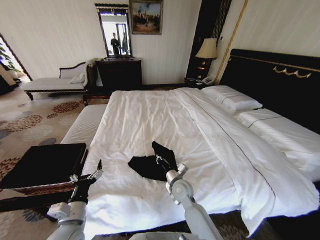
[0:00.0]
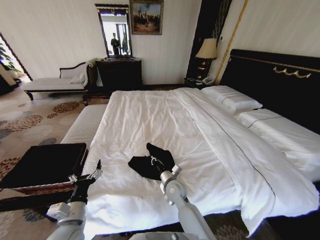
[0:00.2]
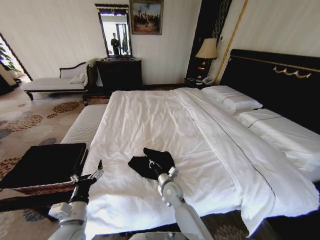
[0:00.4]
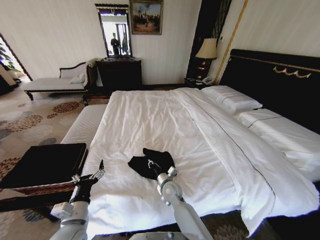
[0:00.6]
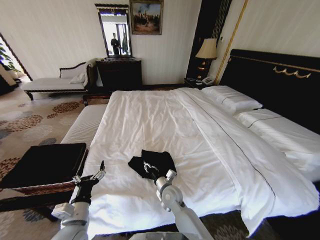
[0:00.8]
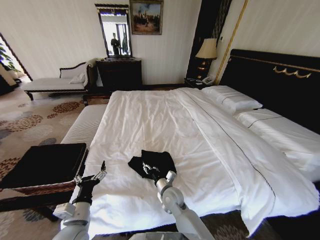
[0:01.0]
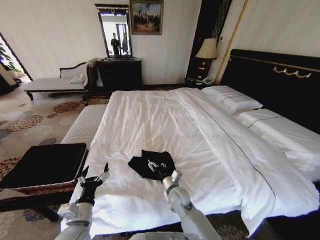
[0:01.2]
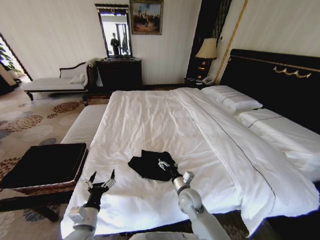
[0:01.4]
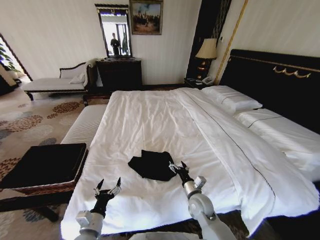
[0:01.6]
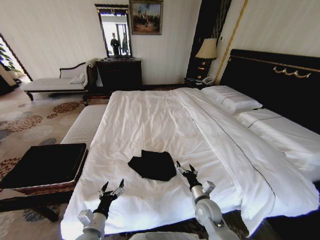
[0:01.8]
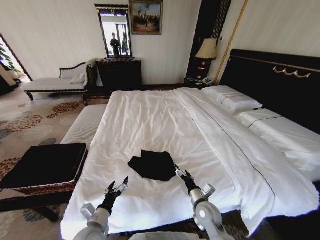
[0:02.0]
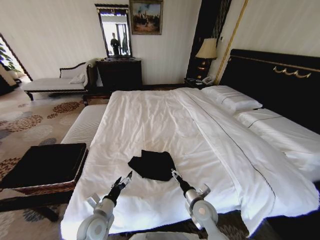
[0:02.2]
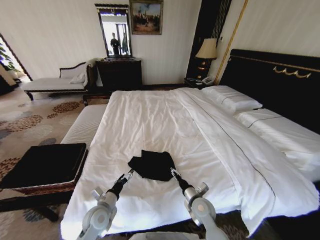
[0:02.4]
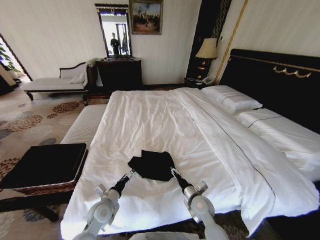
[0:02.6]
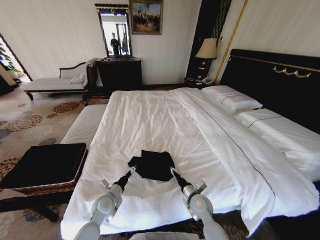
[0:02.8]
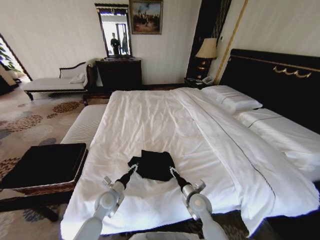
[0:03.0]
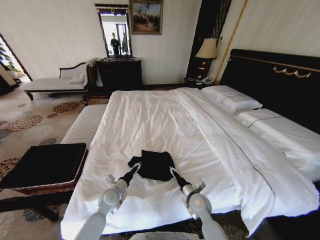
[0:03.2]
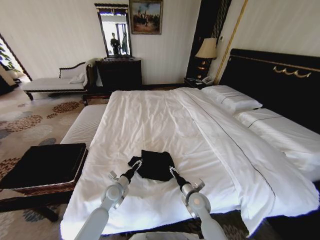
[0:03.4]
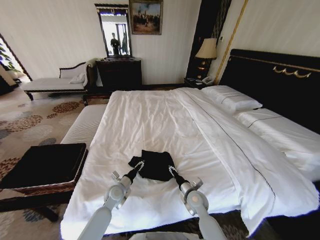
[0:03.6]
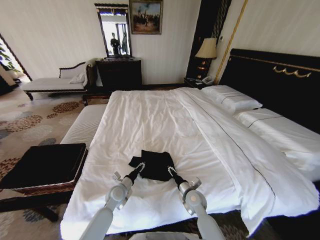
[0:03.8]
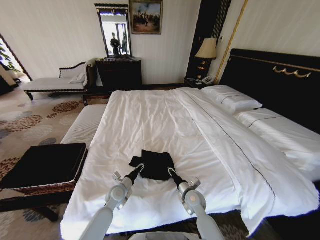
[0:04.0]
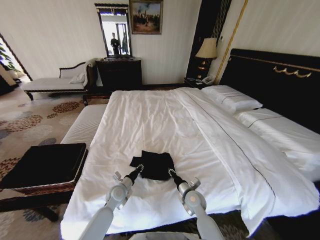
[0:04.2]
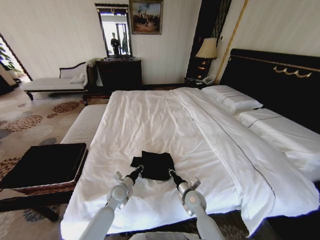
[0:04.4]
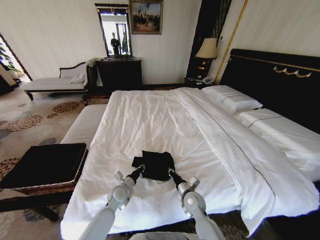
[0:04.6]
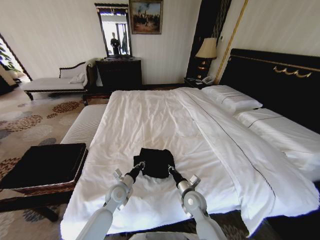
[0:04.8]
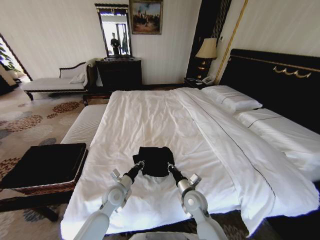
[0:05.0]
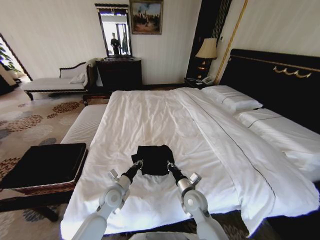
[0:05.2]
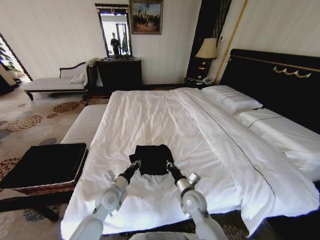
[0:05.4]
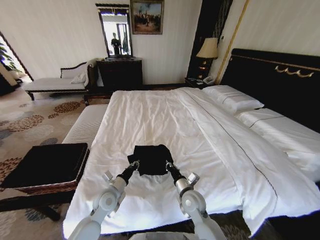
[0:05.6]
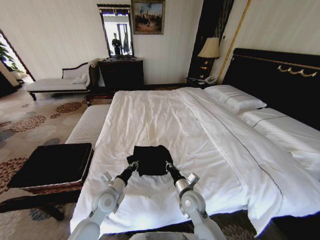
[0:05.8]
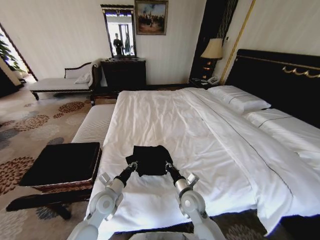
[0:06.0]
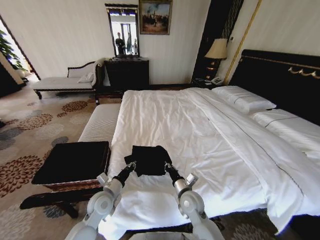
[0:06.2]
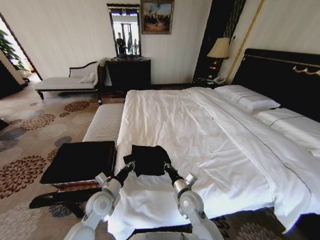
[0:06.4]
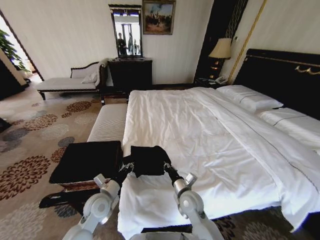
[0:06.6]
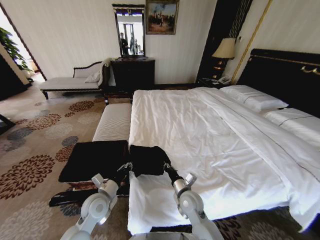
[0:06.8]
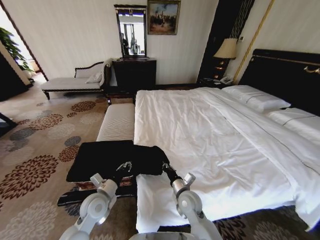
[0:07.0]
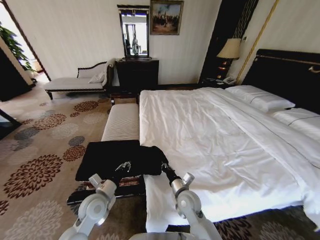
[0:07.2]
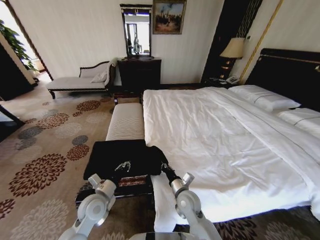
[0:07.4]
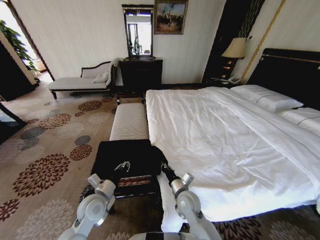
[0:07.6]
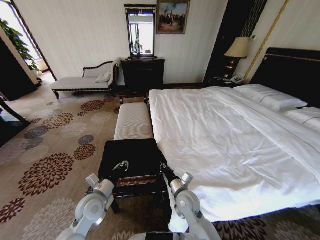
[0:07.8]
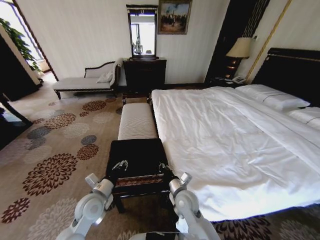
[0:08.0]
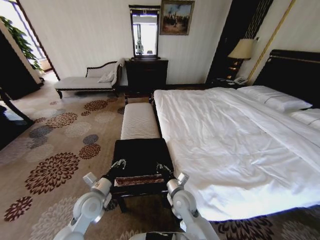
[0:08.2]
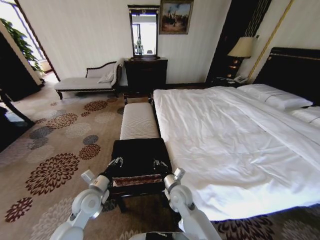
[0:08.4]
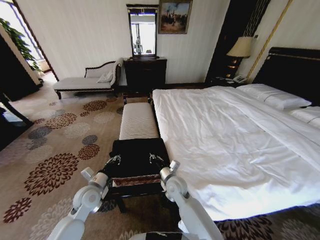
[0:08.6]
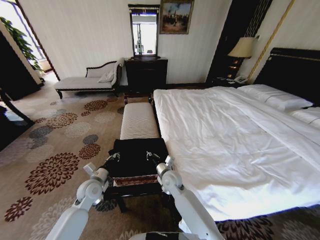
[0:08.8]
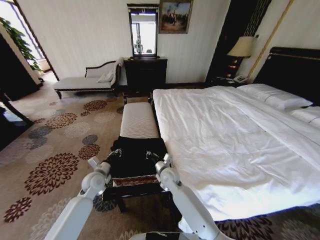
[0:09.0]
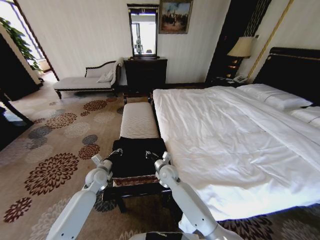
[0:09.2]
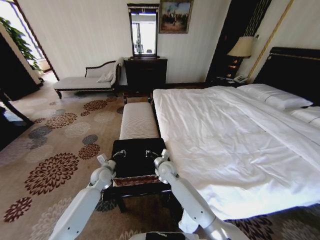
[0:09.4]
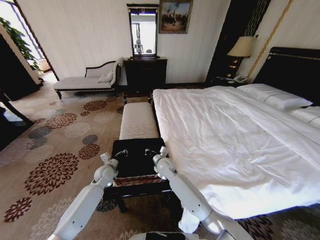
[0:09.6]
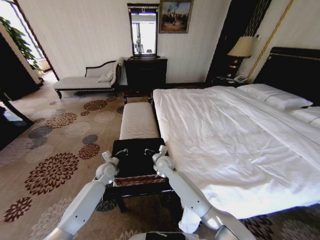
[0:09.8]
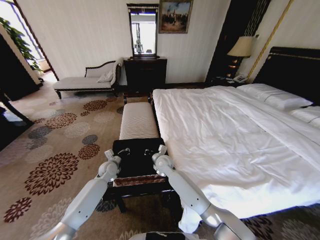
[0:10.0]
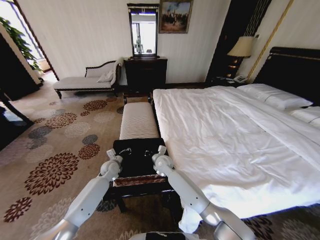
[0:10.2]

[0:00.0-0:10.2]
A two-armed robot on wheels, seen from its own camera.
Task of the whole recording: Fold the clothes on the bed and place them into the basket.
0:00.0 to 0:01.4: The right gripper opens up.
0:01.4 to 0:03.0: The left gripper moves forward and downward, some 15 cm; the right gripper shifts about 5 cm to the right.
0:03.0 to 0:04.4: The left gripper shifts by approximately 5 cm, and closes, while the right gripper closes.
0:04.4 to 0:05.8: Both grippers move upward, some 5 cm.
0:07.2 to 0:08.8: The right gripper travels forward and to the left by approximately 10 cm; the left gripper is displaced forward by some 5 cm.
0:08.8 to 0:10.2: The two grippers go approximately 10 cm forward.

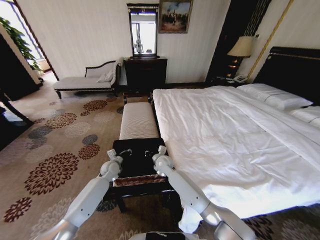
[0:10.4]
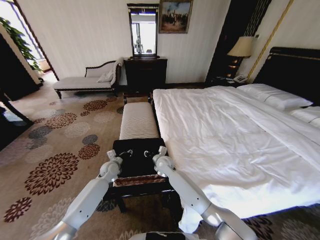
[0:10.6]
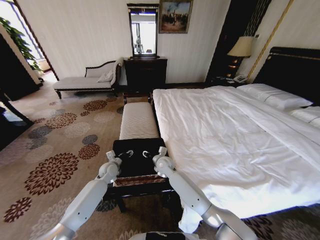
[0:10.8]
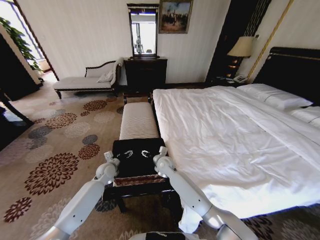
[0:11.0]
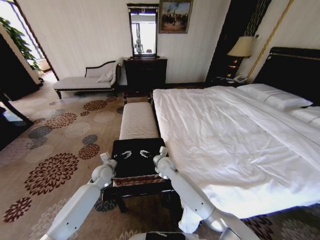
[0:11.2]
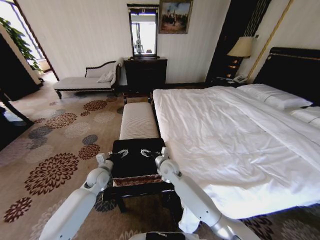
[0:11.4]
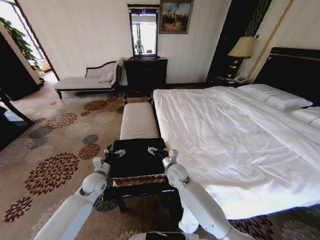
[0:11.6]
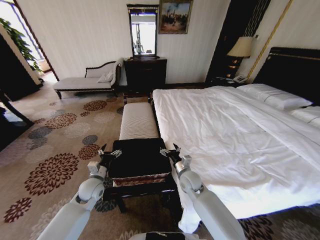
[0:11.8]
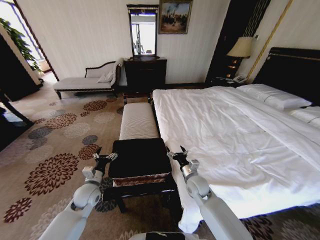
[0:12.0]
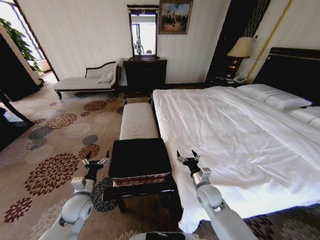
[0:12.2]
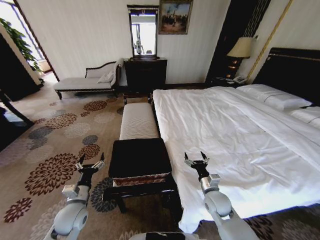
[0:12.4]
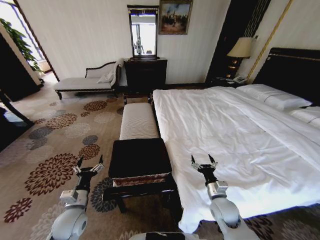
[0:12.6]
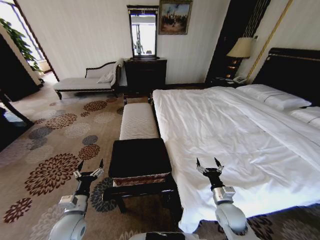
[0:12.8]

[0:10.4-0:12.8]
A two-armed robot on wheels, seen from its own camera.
Task of the whole recording: Fold the clothes on the bed and place them into the basket.
0:10.4 to 0:11.6: The right gripper travels backward and to the right by roughly 10 cm, and opens its fingers. Meanwhile the left gripper moves backward, approximately 10 cm, and opens up.
0:11.6 to 0:12.8: The right gripper moves to the right and backward, some 25 cm. Meanwhile the left gripper goes approximately 15 cm backward.
